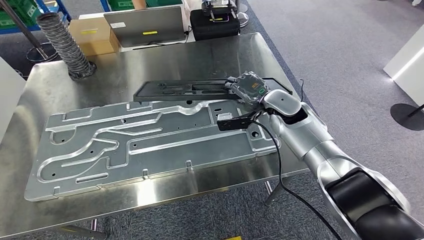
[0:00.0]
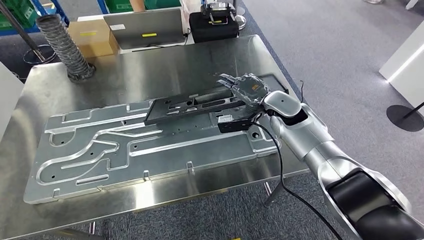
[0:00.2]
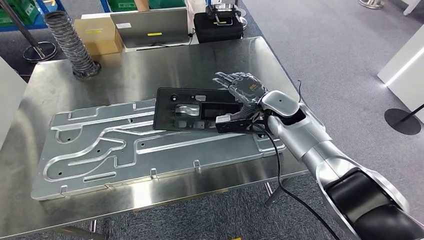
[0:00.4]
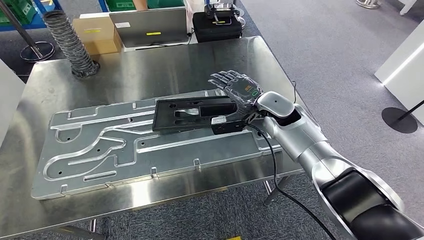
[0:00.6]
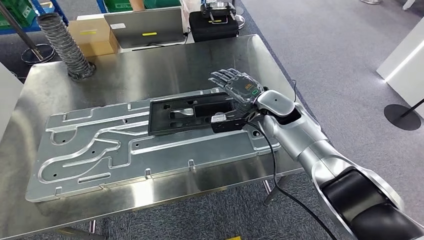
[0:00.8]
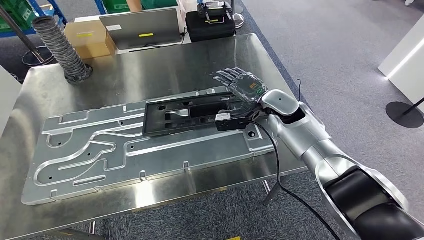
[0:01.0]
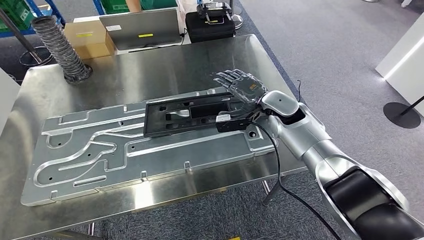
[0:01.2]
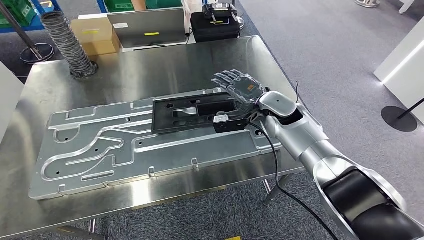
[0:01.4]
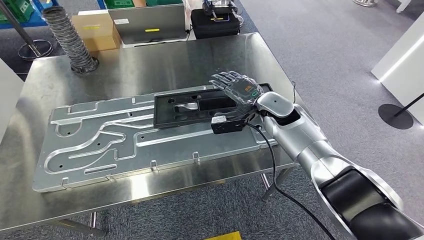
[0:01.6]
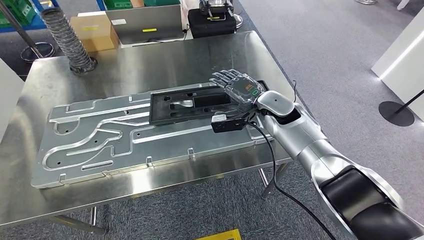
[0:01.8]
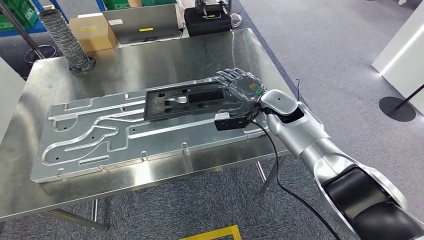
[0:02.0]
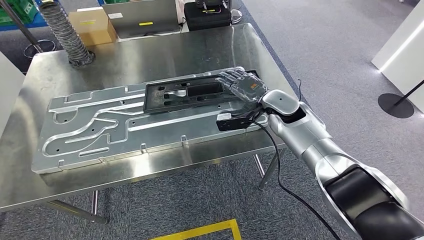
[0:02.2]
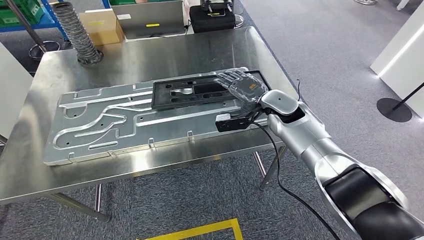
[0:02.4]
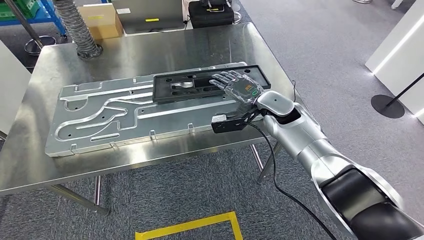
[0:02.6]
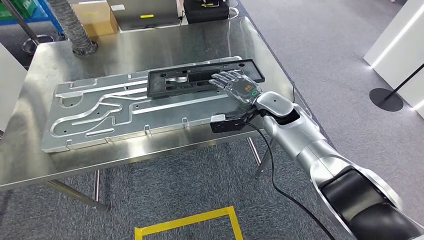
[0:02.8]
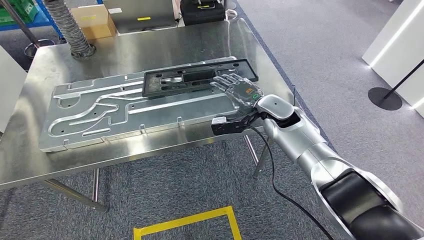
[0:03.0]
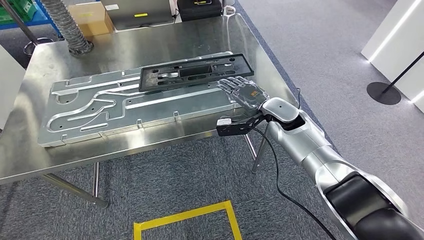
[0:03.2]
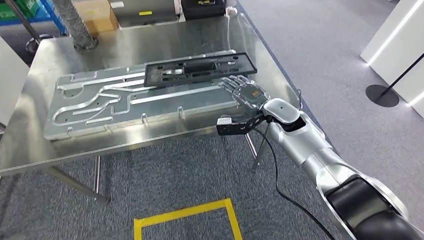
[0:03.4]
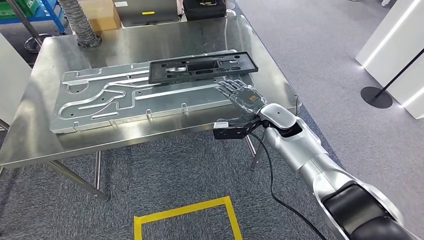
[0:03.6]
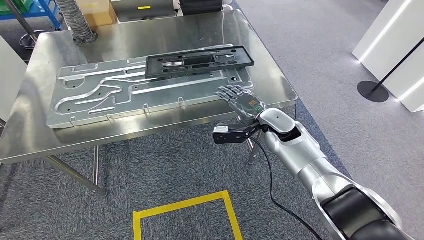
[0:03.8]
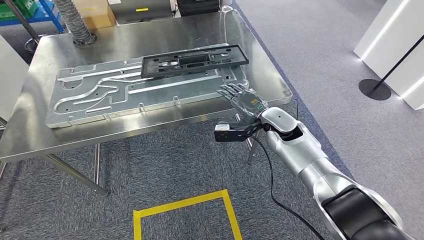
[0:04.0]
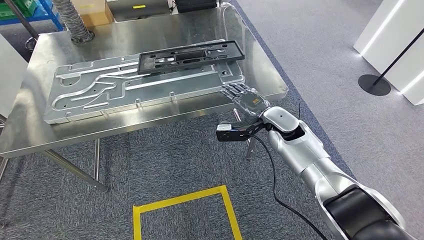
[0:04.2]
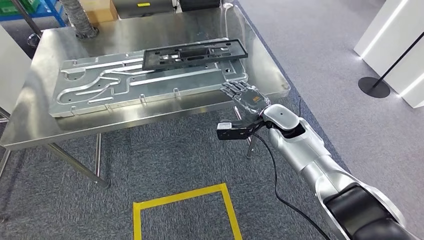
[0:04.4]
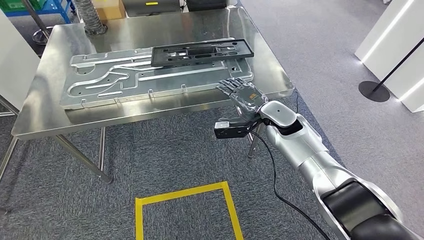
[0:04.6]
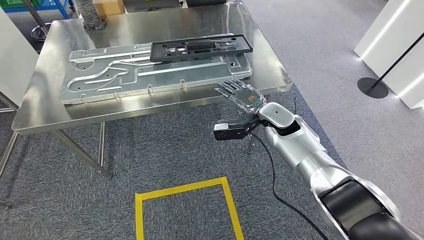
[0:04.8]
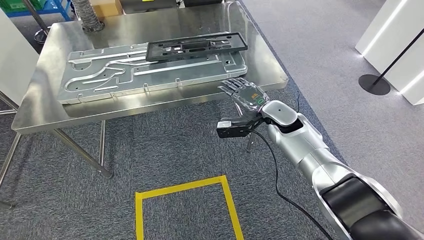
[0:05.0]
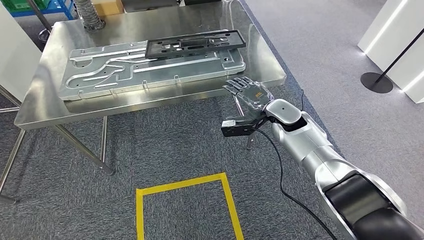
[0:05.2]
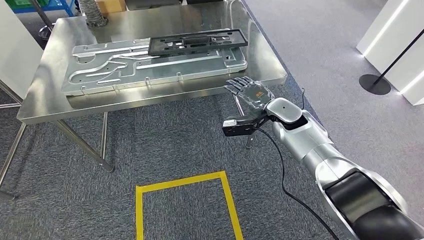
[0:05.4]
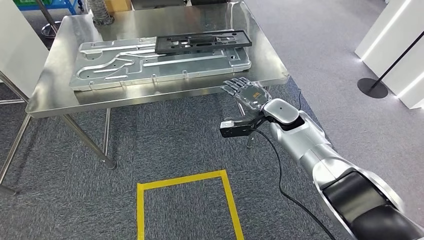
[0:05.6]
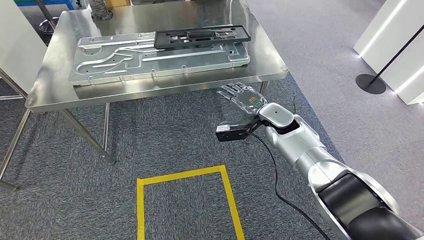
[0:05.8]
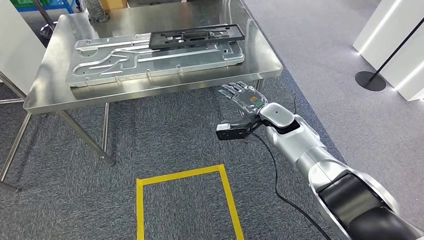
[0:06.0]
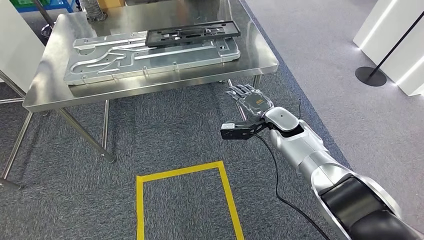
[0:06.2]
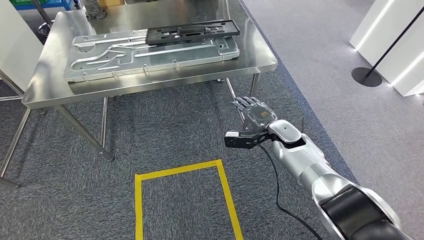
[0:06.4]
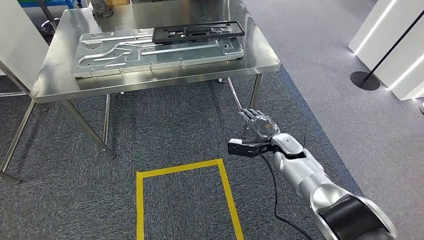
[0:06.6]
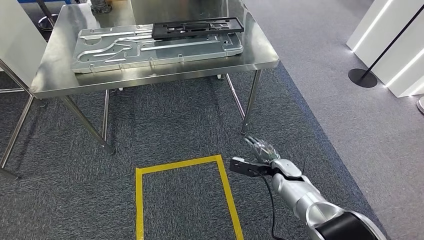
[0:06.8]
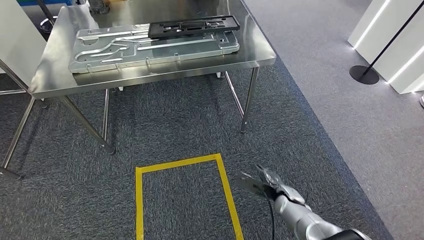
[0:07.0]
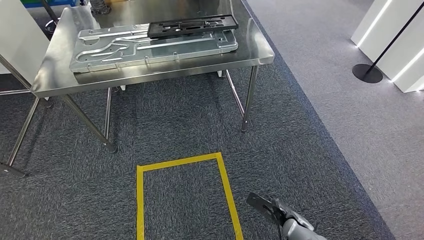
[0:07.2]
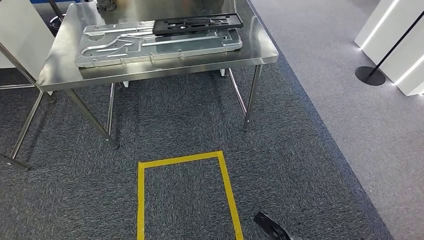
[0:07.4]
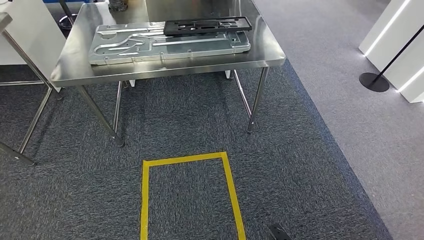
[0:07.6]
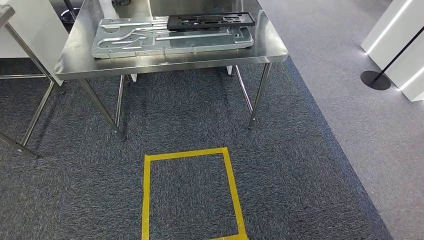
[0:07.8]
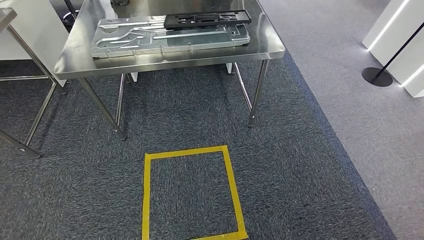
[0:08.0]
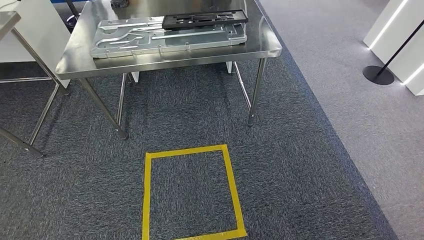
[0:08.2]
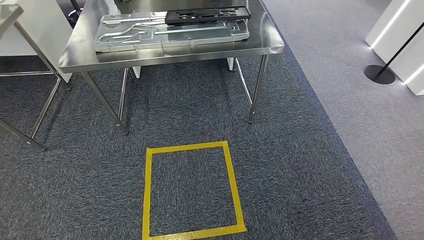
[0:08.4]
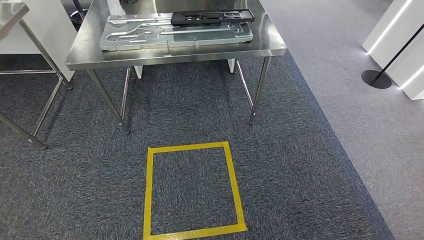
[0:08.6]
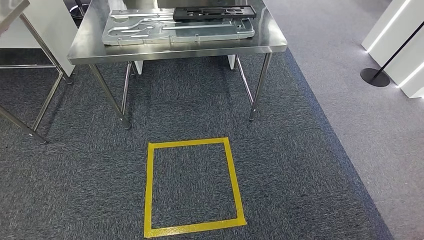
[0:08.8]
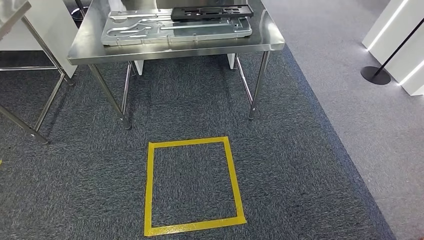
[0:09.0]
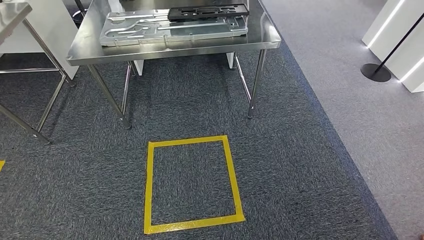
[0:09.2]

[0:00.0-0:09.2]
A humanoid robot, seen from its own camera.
Step, 0:00.0 to 0:02.6: Insert the large material into the corresponding hole on the workbench.
Step, 0:03.4 to 0:09.2: Move to the initial position of the shelf.
